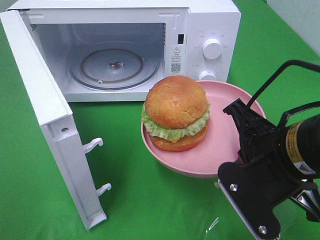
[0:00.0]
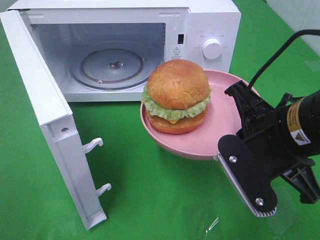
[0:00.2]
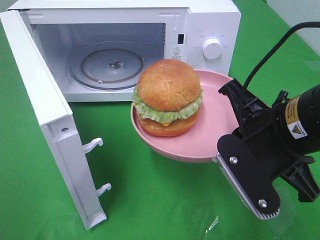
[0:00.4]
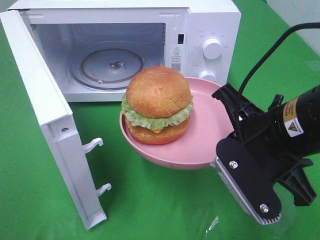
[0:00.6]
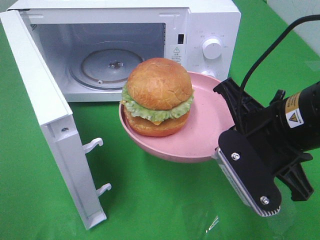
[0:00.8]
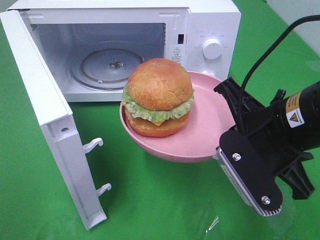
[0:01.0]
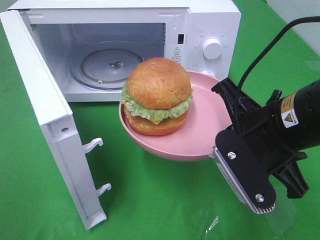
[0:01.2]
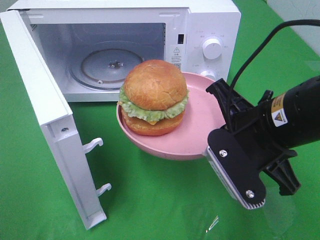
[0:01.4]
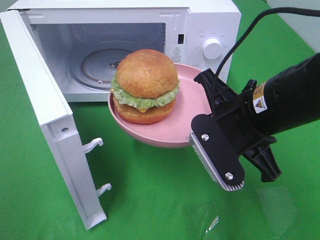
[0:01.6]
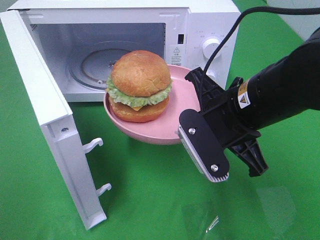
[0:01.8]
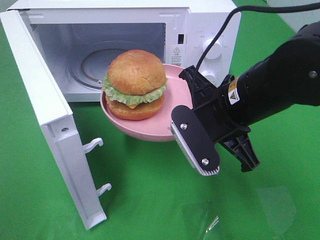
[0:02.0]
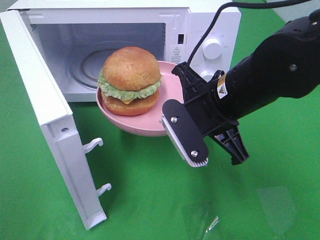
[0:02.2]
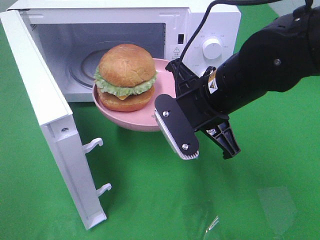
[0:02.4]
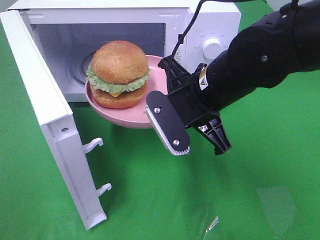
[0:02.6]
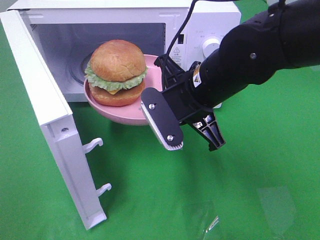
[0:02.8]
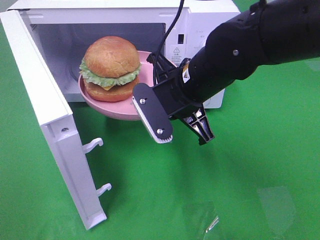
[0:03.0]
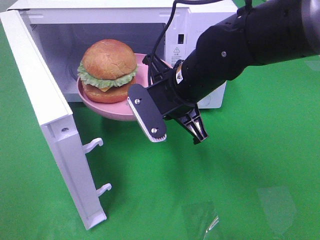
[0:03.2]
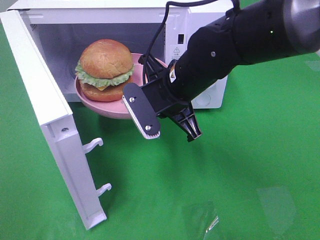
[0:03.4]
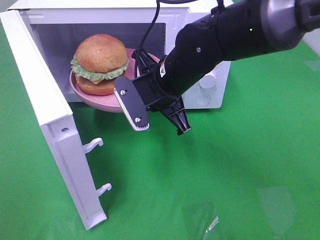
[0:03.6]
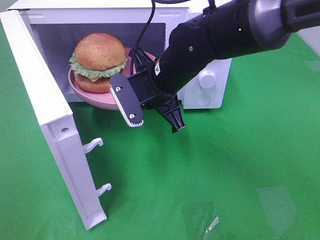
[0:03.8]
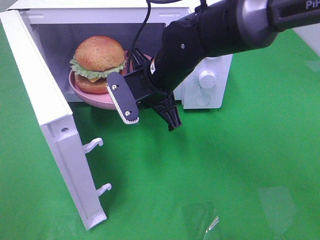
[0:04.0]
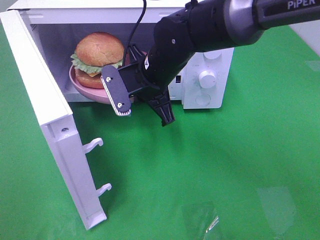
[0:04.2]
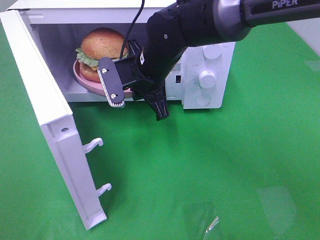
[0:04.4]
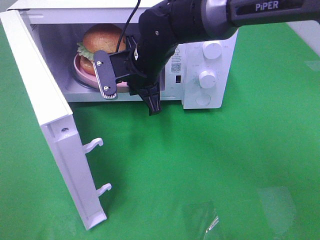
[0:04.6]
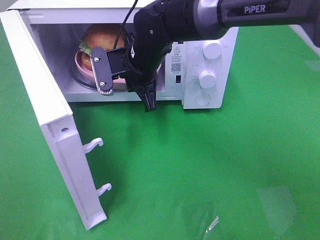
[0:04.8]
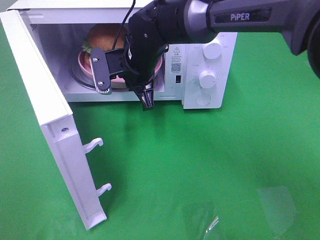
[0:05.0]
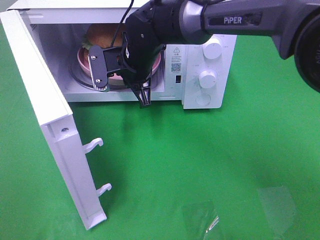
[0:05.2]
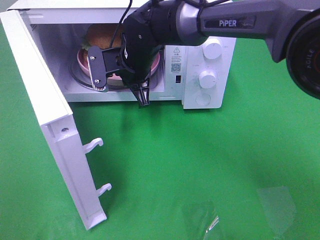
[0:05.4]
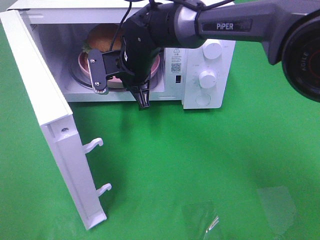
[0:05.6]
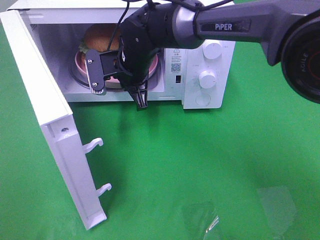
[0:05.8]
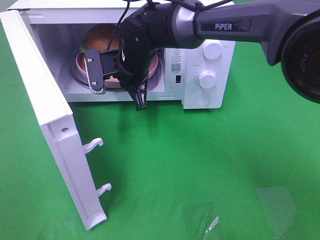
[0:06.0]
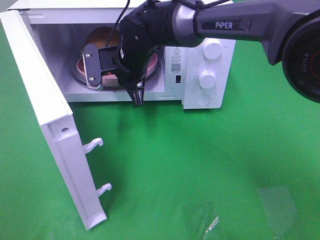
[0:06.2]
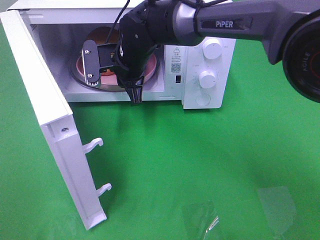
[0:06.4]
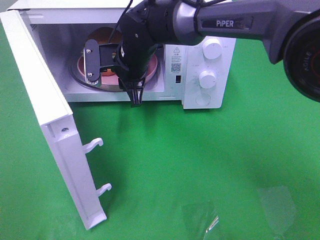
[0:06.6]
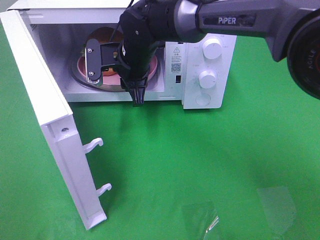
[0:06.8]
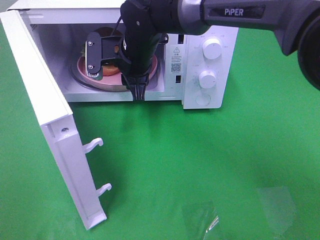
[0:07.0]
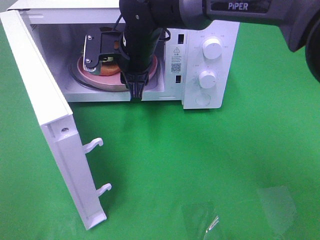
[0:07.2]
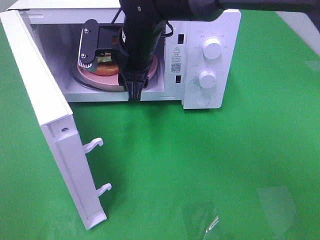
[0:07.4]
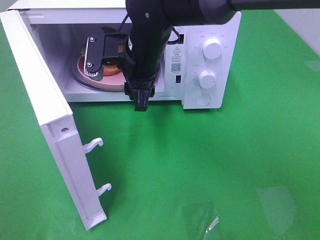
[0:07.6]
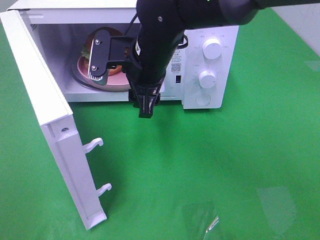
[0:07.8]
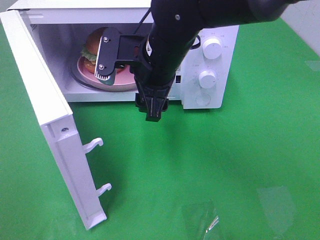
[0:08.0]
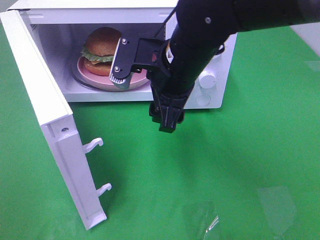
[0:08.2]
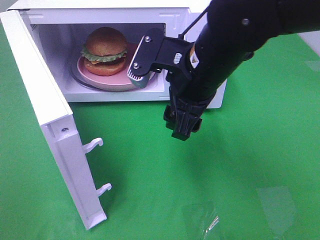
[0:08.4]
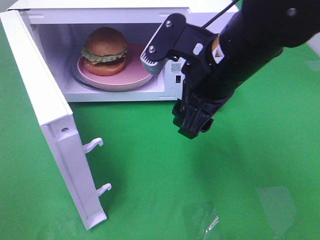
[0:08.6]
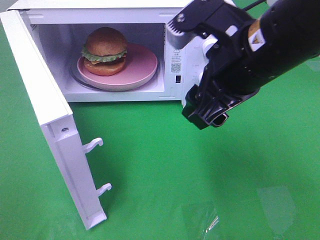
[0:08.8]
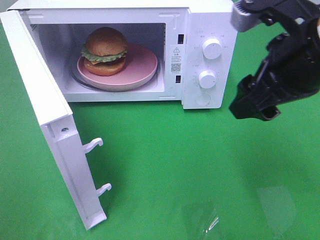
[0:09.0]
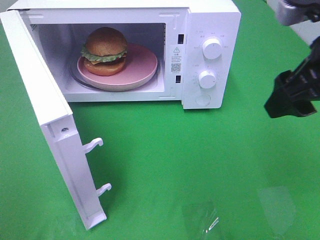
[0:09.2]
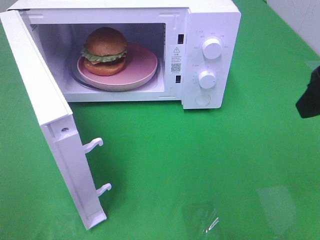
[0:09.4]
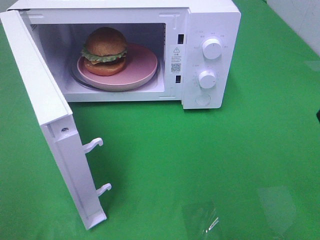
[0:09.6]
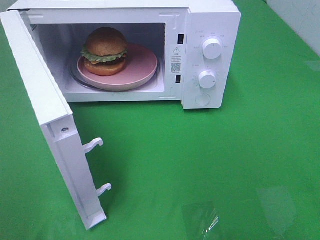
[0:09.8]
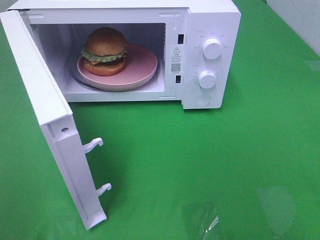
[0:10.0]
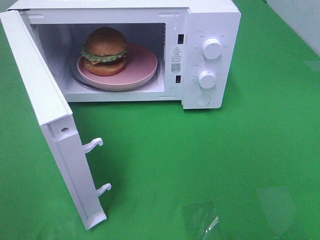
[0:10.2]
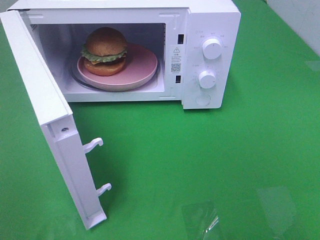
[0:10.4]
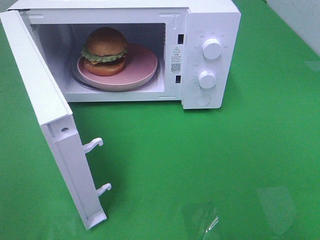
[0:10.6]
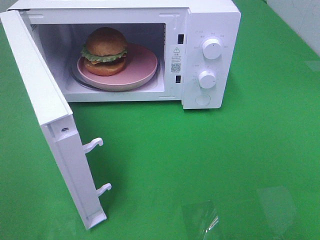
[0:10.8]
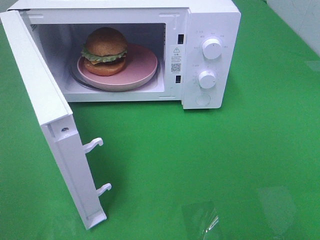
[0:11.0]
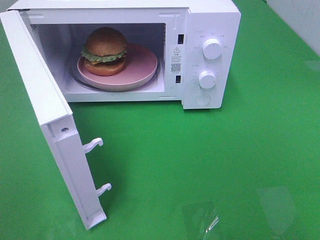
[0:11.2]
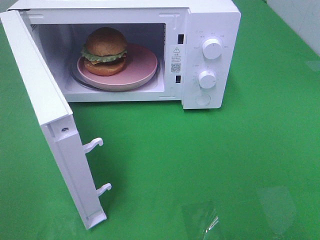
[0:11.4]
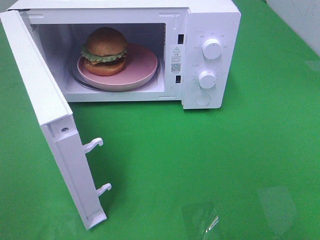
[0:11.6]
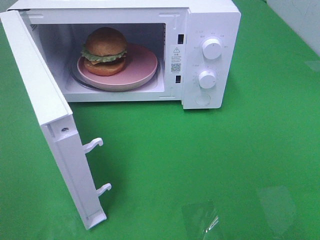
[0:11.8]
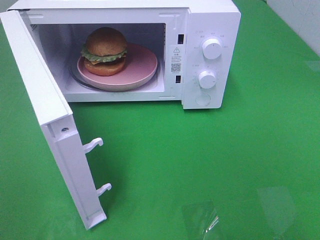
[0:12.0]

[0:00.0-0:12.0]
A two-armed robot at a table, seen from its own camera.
Task of the whole recording: Heat the burger.
Step, 0:00.0 to 0:06.2: Right hand: place the plate in the microwave.
0:00.0 to 0:01.6: The right gripper goes some 5 cm forward.
0:01.6 to 0:03.0: The right gripper moves forward and to the left, approximately 10 cm.
0:03.0 to 0:04.4: The right gripper travels forward and to the left by some 10 cm.
0:04.4 to 0:06.0: The right gripper ends up some 5 cm from where it was.
0:06.0 to 0:07.6: The right gripper changes place by some 5 cm, and opens.
0:07.6 to 0:09.0: The right gripper travels to the right, backward and upward by roughly 25 cm.
0:09.0 to 0:10.4: The right gripper goes approximately 25 cm backward and to the right.

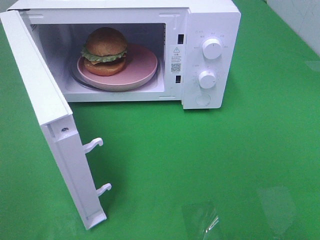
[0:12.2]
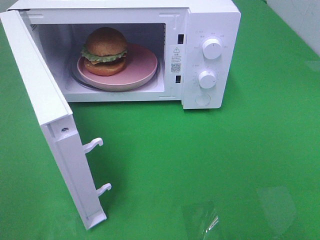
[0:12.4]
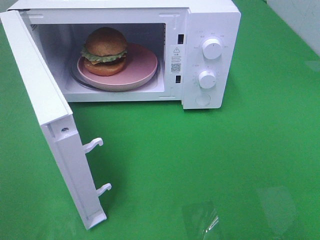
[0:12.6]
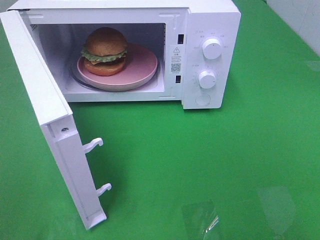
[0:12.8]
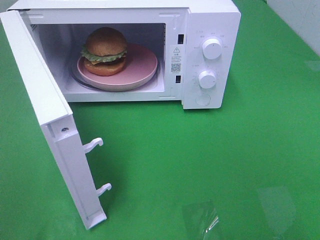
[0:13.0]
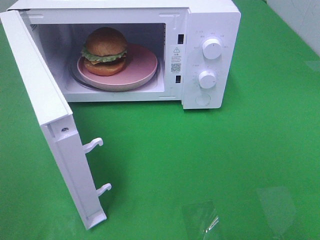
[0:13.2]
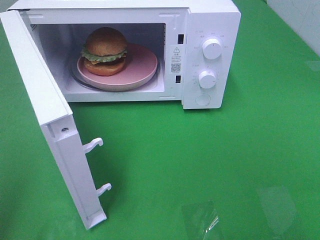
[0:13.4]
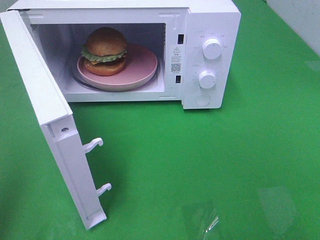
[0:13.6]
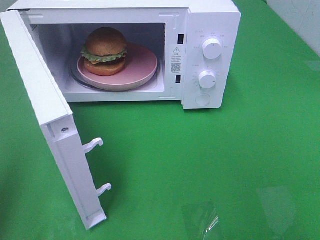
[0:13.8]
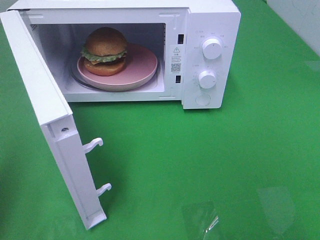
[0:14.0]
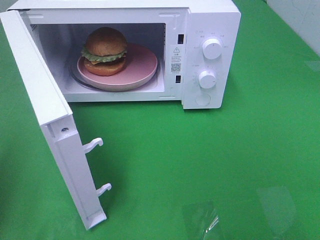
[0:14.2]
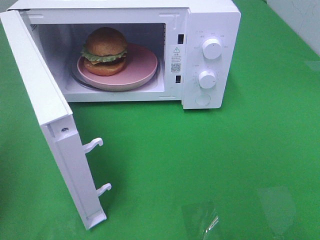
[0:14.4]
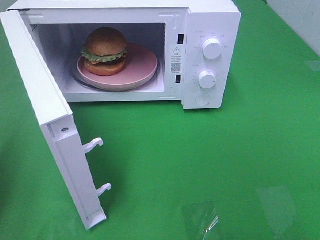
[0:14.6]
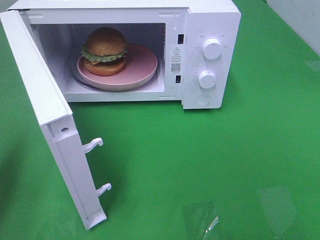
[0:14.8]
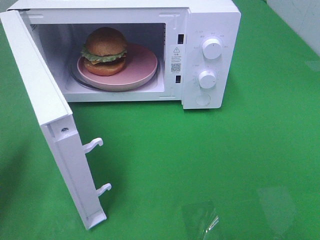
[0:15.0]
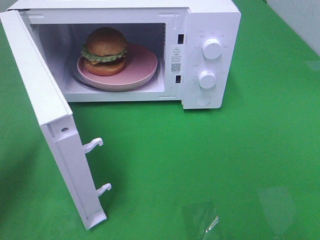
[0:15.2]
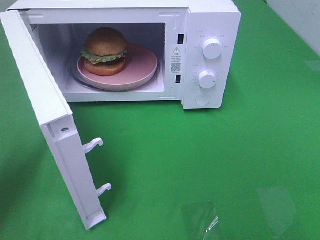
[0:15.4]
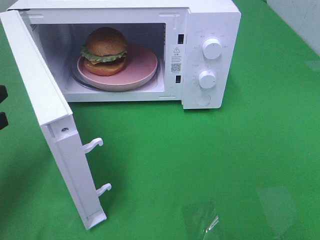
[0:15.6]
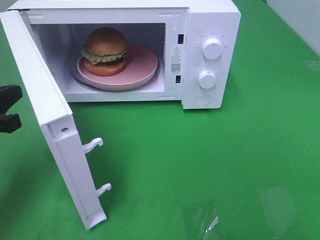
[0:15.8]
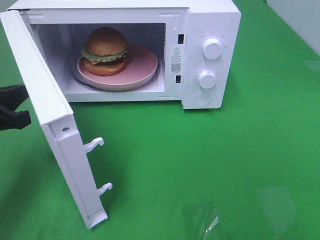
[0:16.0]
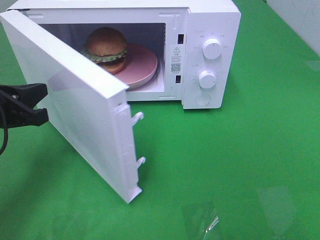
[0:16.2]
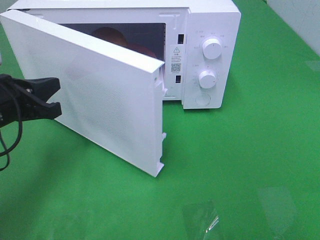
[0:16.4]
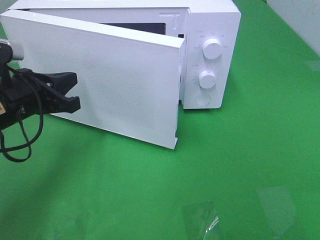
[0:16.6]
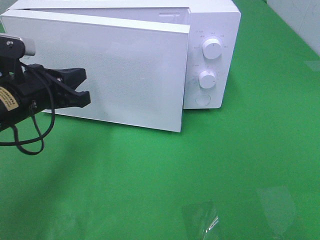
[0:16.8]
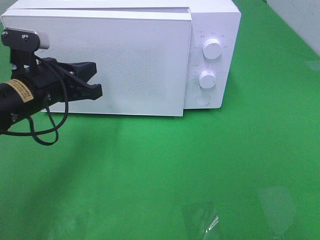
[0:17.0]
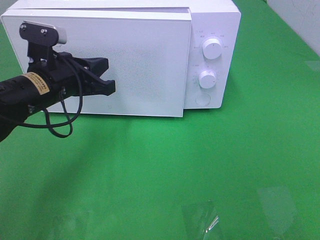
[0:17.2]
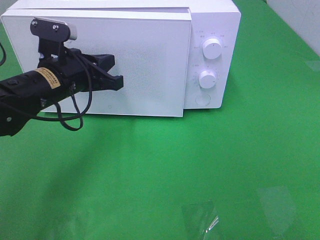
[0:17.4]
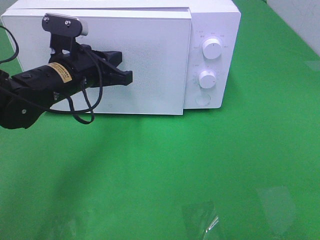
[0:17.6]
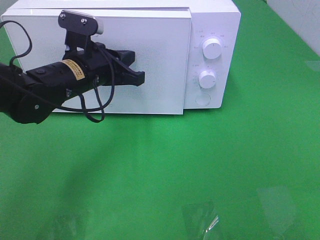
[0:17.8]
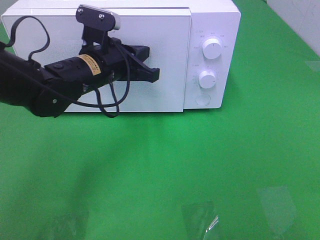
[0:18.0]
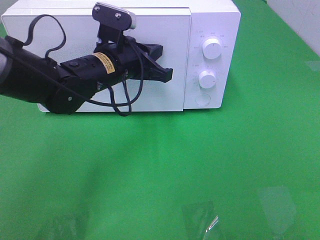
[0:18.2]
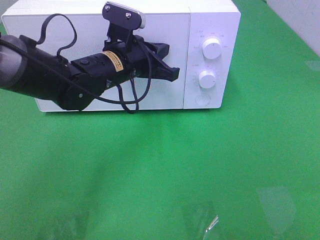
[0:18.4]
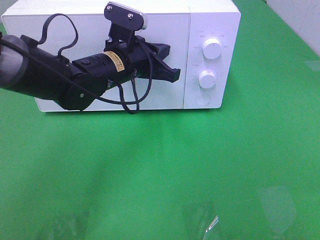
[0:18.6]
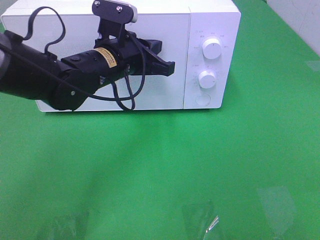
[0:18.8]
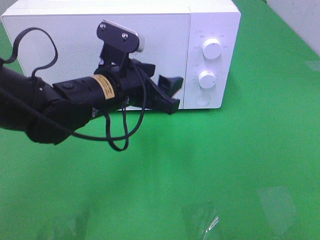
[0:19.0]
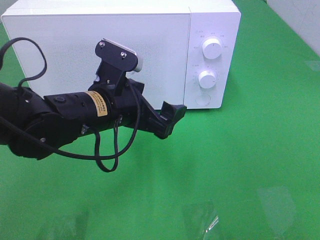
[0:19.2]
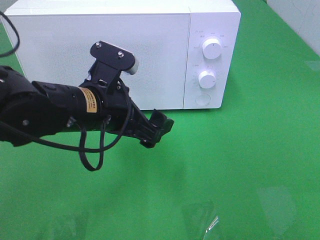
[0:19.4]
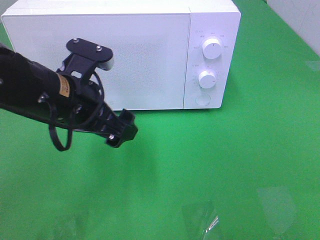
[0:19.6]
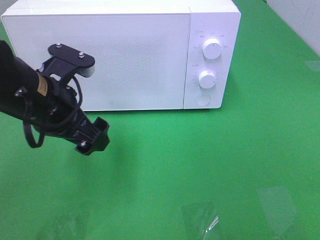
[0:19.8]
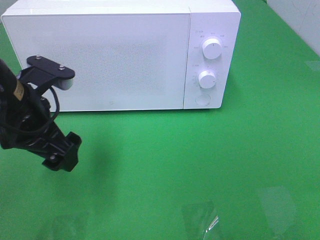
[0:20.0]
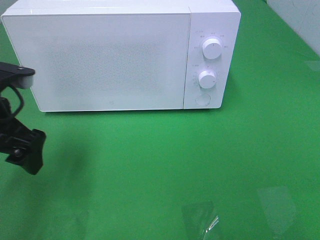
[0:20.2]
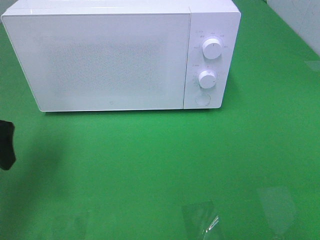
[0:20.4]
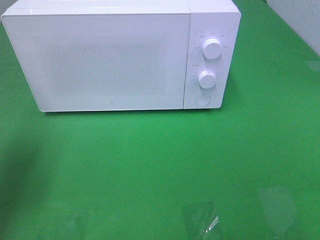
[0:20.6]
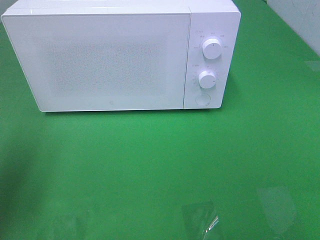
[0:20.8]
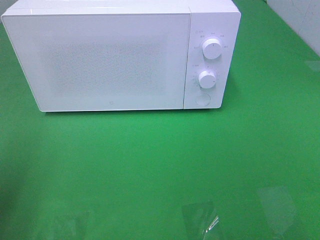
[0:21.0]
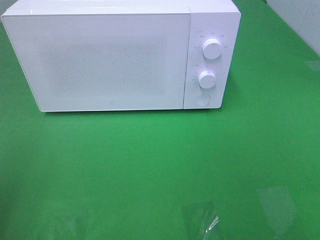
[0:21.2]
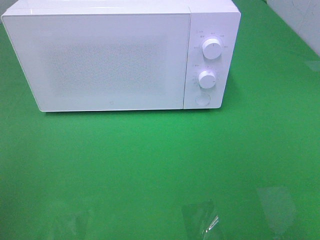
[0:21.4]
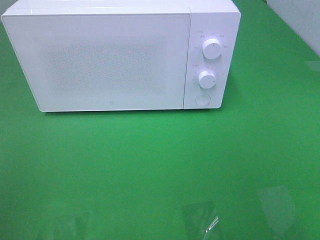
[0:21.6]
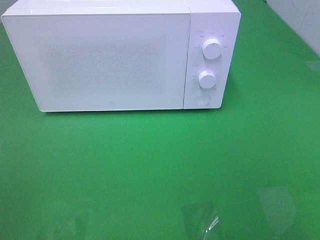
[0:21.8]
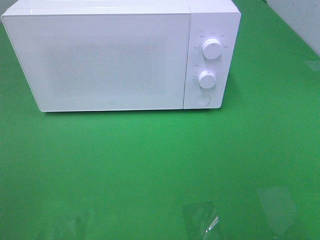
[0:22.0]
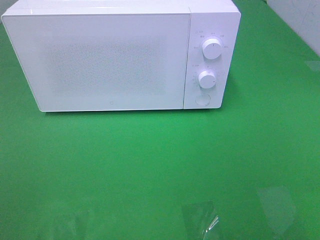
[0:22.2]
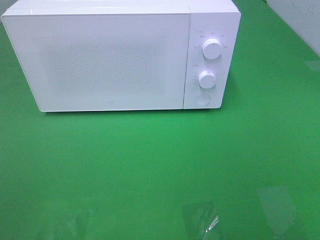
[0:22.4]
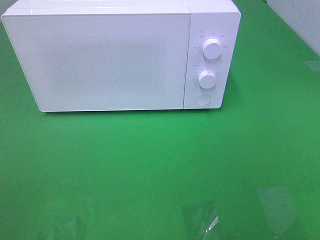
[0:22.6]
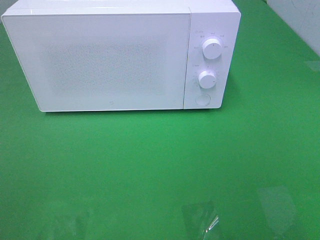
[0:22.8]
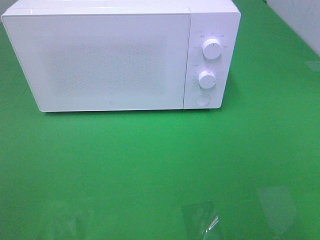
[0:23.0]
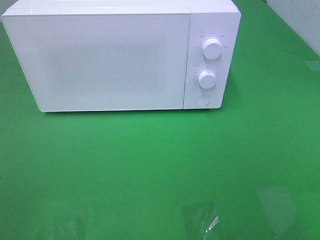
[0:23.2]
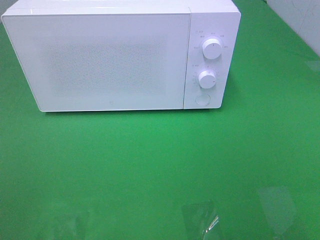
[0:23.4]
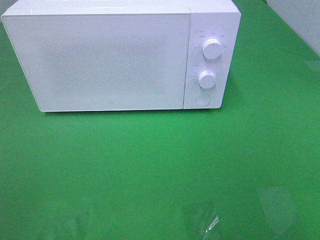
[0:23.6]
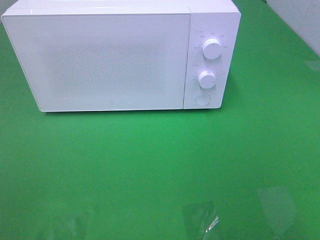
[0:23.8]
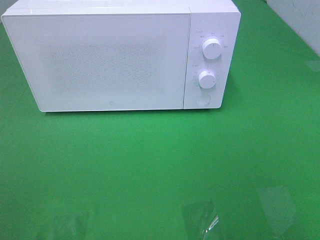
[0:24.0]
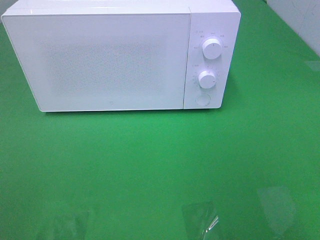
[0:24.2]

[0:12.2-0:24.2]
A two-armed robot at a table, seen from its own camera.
Task of the whole recording: Heat the burger.
Step, 0:12.2 to 0:18.8: Left hand: close the microwave door.
0:15.2 to 0:16.6: The left gripper goes roughly 10 cm to the right and forward.
0:16.6 to 0:18.2: The left gripper goes about 15 cm to the right and forward.
0:18.2 to 0:19.8: The left gripper heads backward and to the left, covering roughly 15 cm, and opens up.
0:19.8 to 0:21.2: The left gripper moves to the left, backward and upward, roughly 25 cm.
